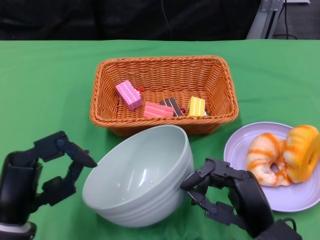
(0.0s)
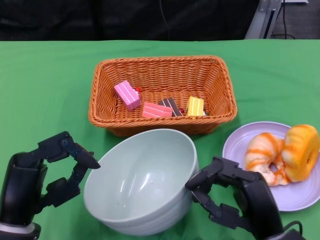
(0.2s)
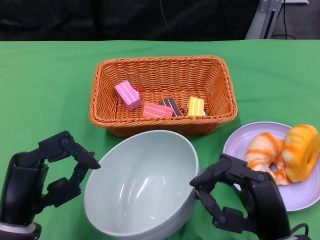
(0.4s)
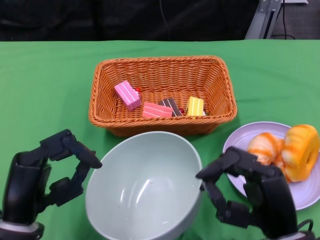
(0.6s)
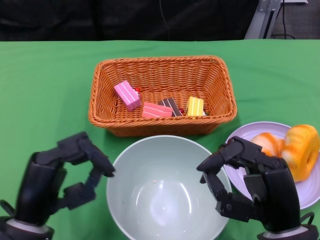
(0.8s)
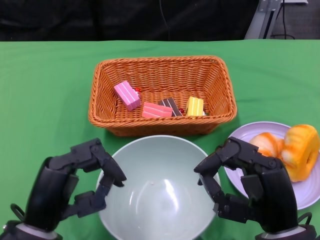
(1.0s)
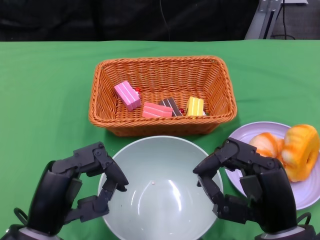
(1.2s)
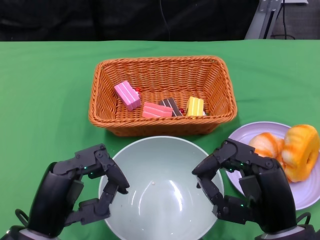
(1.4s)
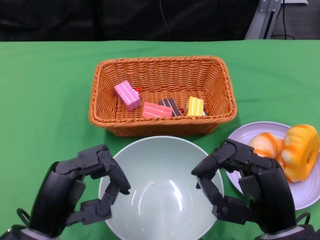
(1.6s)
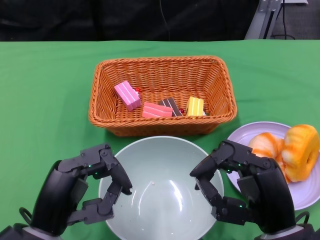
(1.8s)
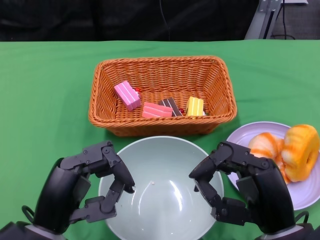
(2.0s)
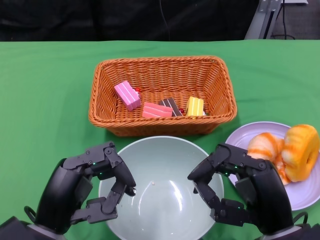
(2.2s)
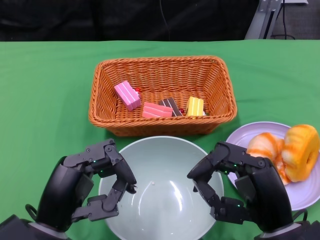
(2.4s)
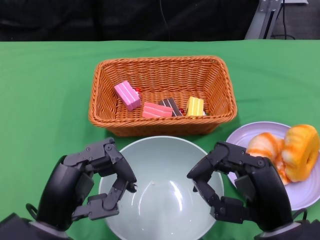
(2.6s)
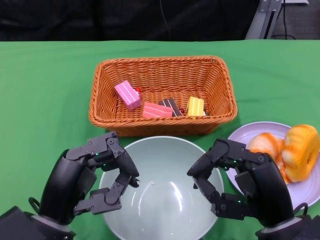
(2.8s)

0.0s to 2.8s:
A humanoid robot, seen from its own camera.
0.0s to 1.4s: The right hand shifts some 5 cm upward.
1.4s to 2.8s: There are only small adjustments of the hands.

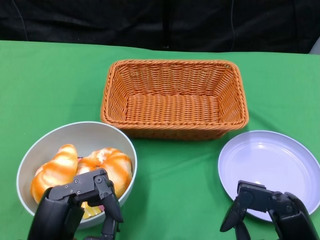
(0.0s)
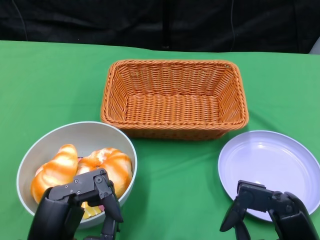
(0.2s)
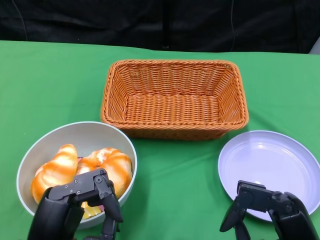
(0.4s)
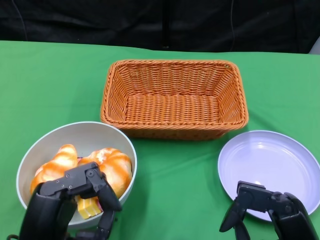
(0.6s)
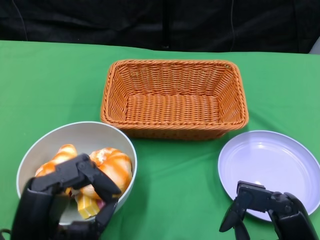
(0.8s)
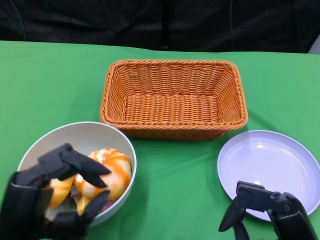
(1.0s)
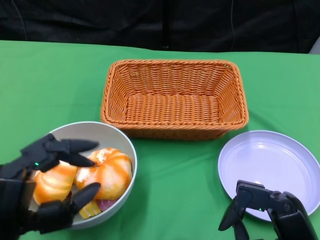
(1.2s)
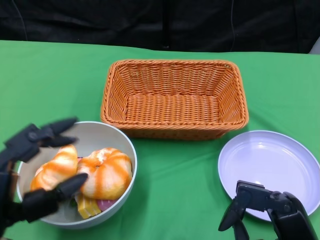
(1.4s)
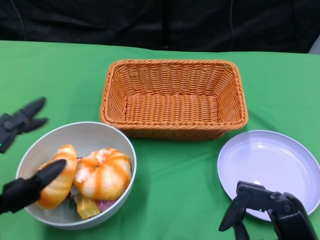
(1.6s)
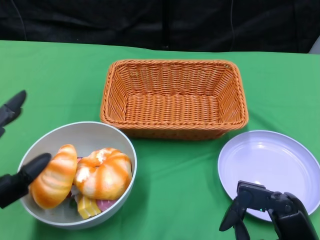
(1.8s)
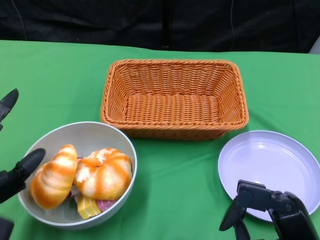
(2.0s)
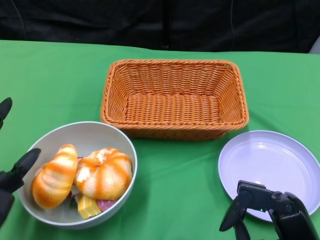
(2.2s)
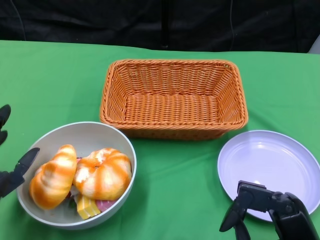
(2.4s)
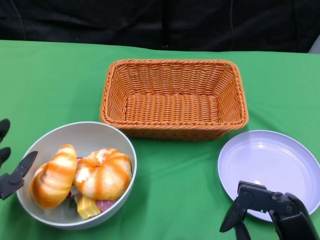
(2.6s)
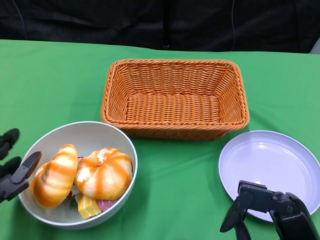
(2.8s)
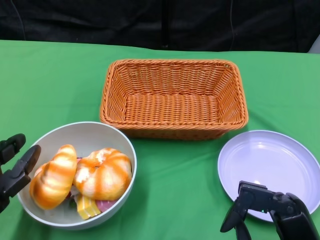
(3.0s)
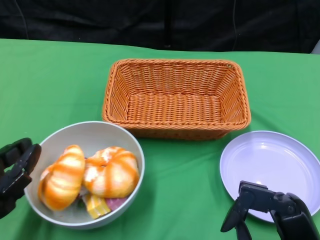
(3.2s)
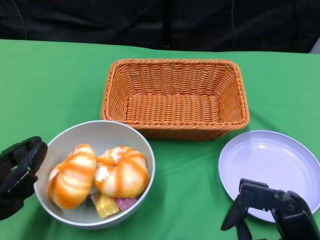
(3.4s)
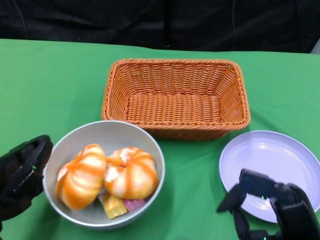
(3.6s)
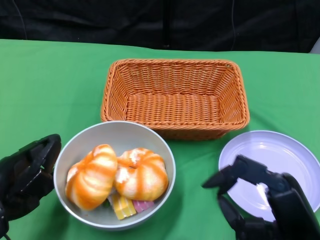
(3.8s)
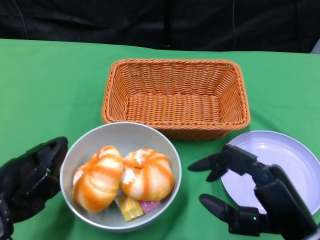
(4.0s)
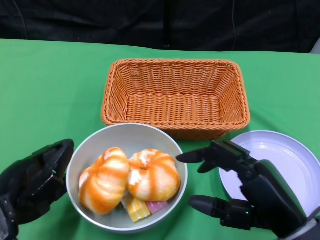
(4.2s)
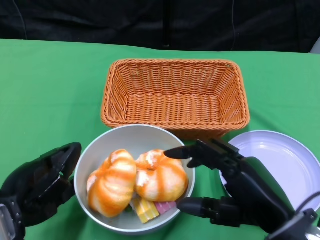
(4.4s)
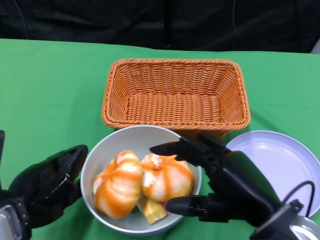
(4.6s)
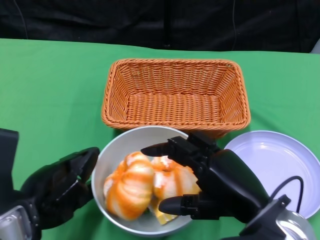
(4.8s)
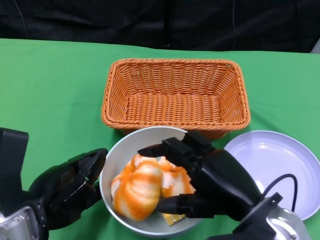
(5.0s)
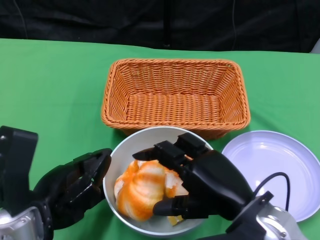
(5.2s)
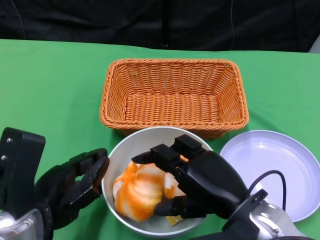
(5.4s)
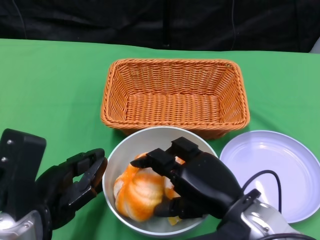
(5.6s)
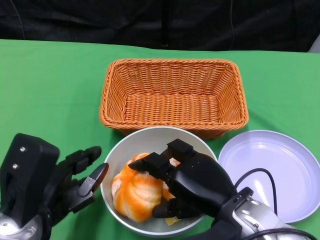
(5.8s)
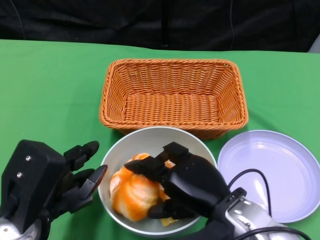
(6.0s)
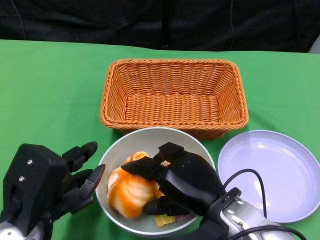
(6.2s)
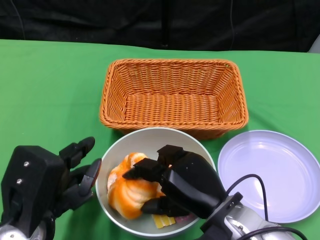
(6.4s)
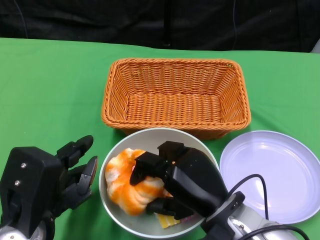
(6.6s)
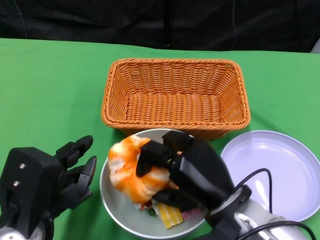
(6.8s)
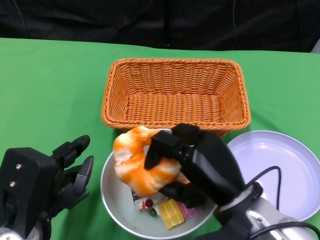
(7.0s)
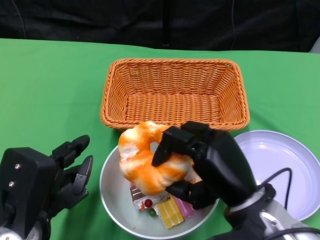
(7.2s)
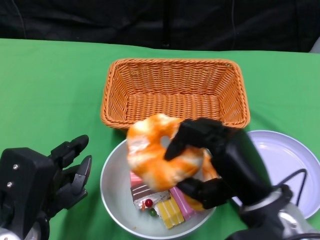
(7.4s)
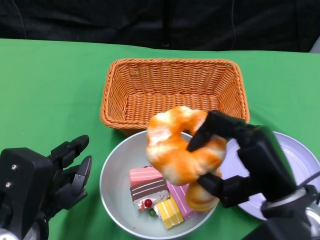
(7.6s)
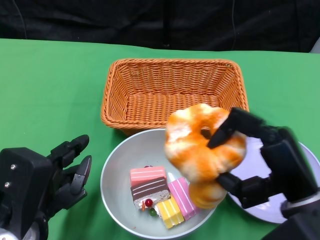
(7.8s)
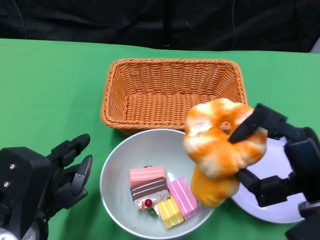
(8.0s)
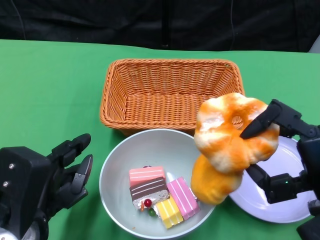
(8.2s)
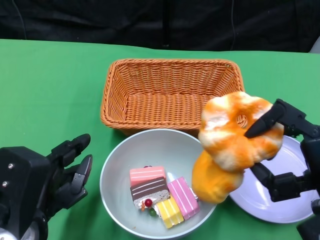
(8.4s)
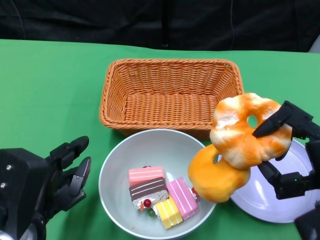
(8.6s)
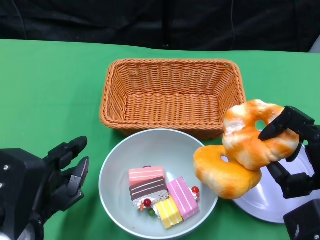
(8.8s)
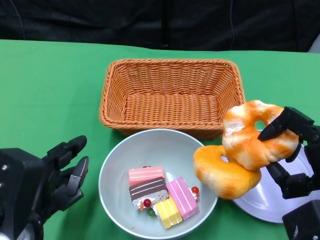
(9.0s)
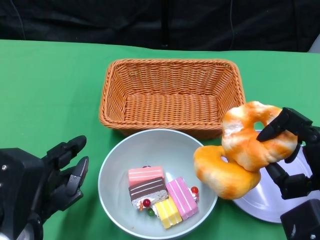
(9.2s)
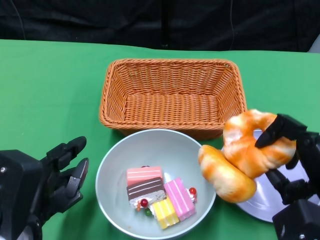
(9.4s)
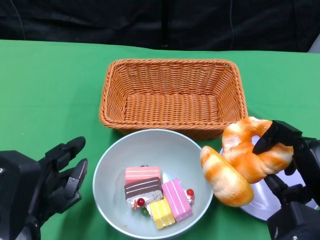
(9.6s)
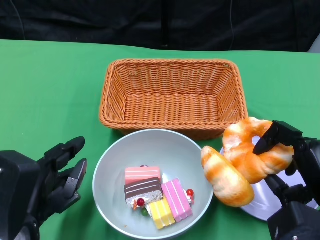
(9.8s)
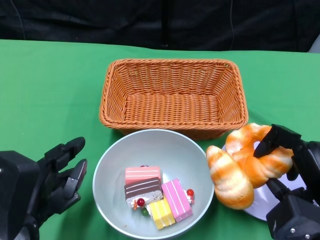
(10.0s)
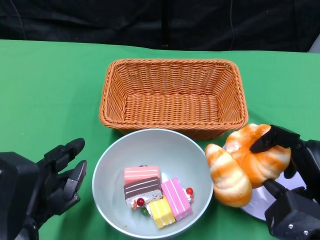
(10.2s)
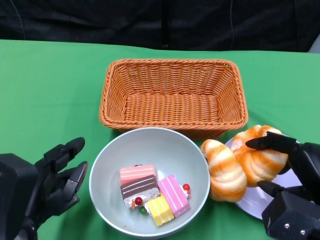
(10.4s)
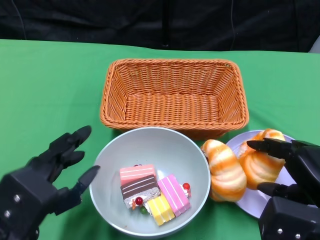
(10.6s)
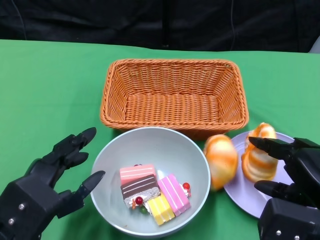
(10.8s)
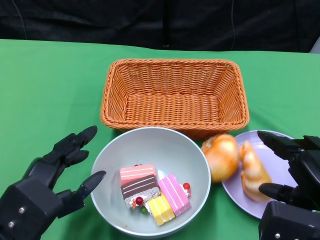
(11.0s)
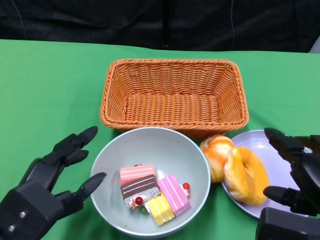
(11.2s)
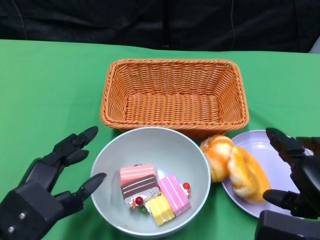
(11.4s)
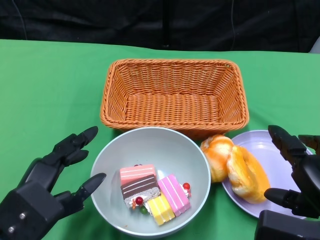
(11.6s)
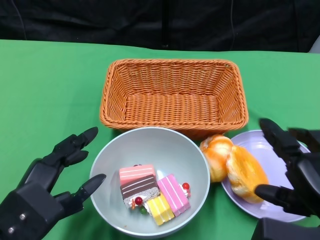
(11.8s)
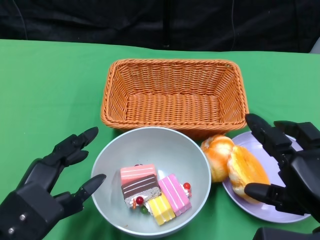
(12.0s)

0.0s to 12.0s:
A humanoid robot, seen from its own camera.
Step, 0.0s to 5.2s: Push the bowl to the center of the table using the left gripper.
Step, 5.4s to 11.4s: Pick up the bread with the right gripper and place it on the plate.
1.6s to 3.0s: The left hand shifts by some 5 cm.
3.0s to 4.4s: The right hand heads upward, covering roughly 5 cm.
4.4s to 6.0s: The right hand moves to the left, approximately 5 cm.
6.0s to 7.6s: The right hand goes about 5 cm to the right.
7.6s to 9.0s: The right hand moves to the right, roughly 5 cm.
10.4s to 12.0s: The right hand shifts by some 5 cm.

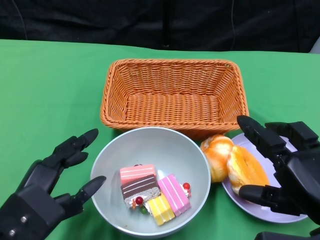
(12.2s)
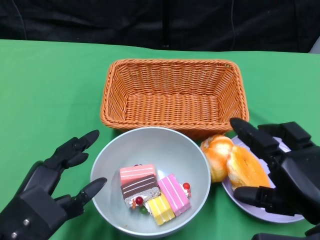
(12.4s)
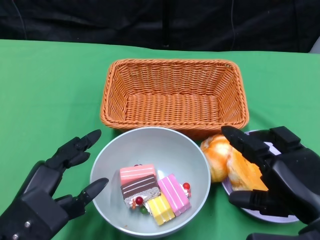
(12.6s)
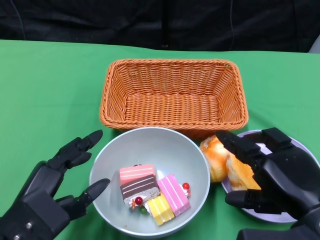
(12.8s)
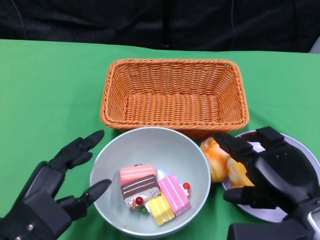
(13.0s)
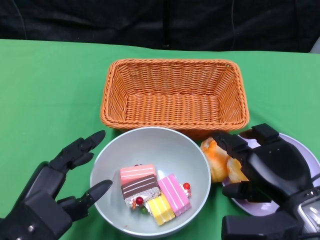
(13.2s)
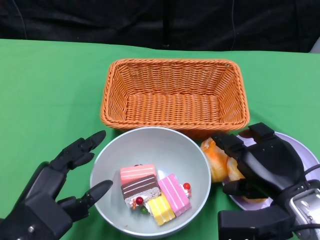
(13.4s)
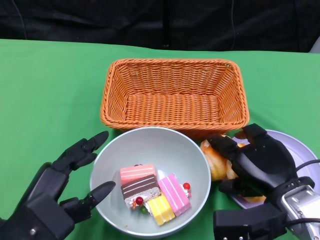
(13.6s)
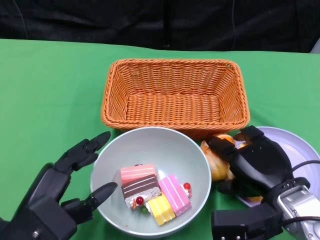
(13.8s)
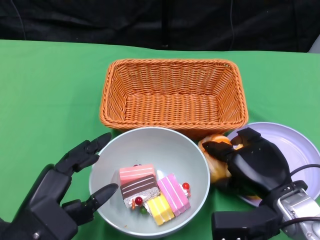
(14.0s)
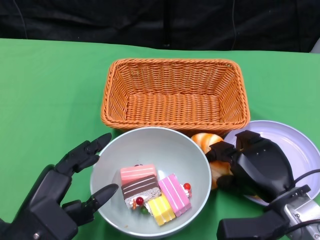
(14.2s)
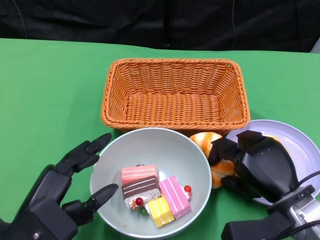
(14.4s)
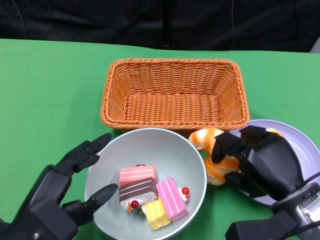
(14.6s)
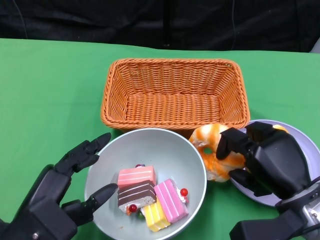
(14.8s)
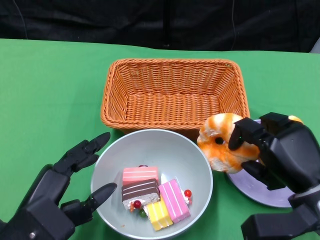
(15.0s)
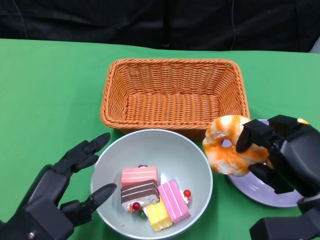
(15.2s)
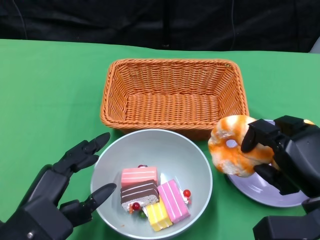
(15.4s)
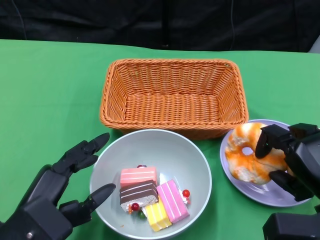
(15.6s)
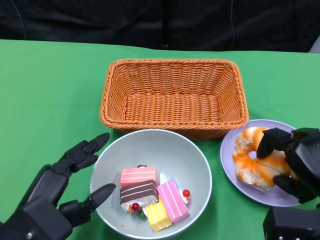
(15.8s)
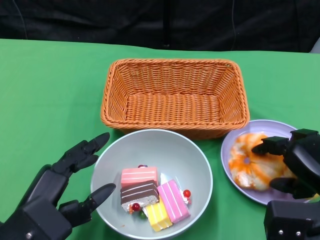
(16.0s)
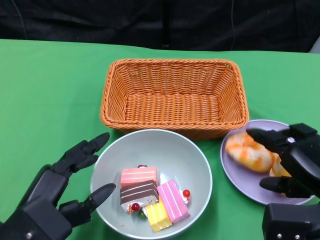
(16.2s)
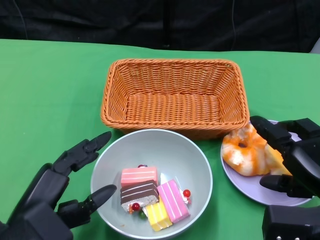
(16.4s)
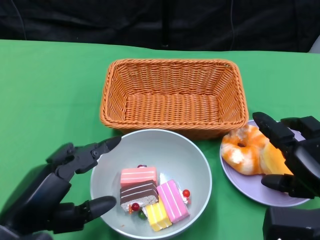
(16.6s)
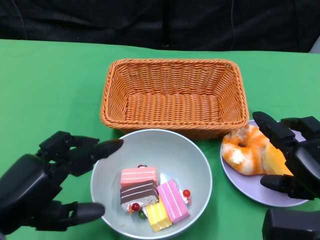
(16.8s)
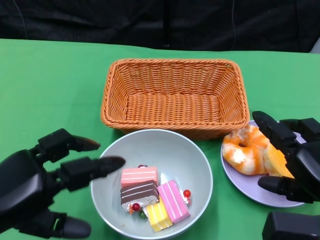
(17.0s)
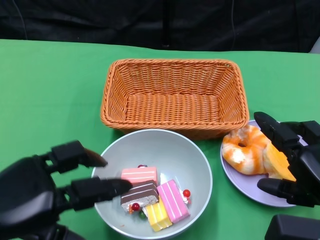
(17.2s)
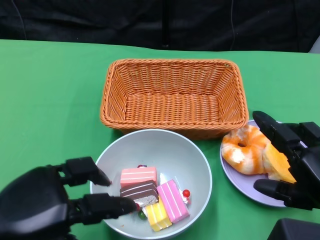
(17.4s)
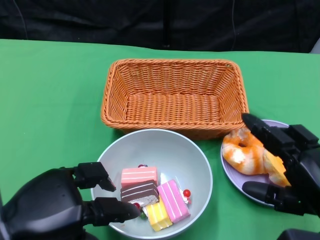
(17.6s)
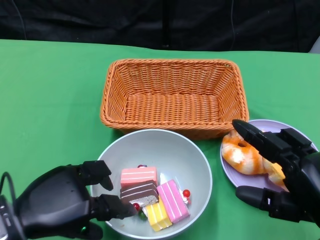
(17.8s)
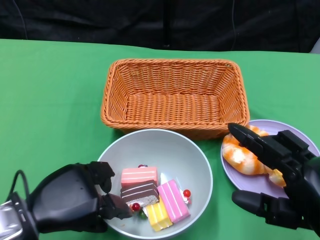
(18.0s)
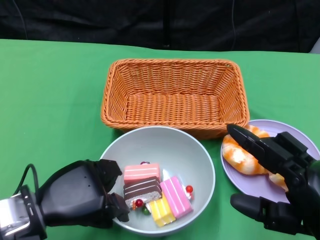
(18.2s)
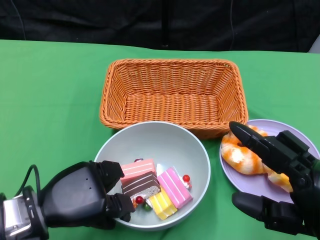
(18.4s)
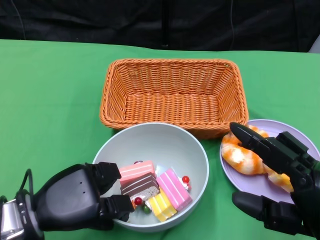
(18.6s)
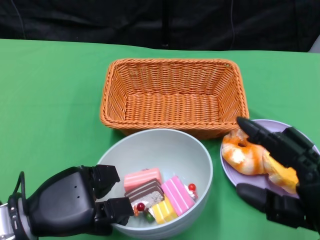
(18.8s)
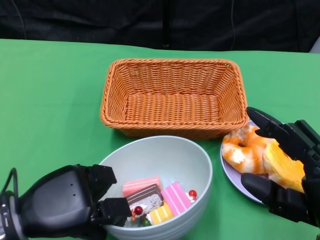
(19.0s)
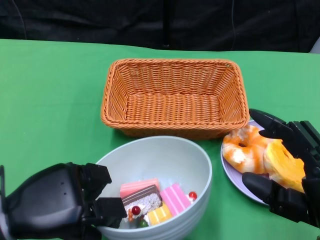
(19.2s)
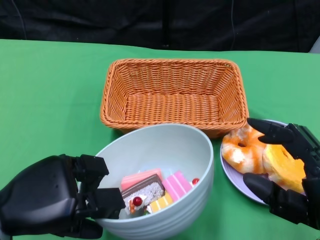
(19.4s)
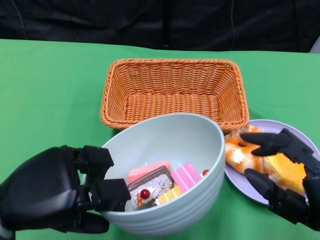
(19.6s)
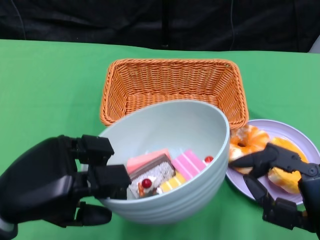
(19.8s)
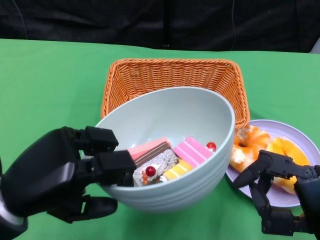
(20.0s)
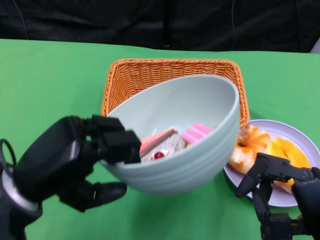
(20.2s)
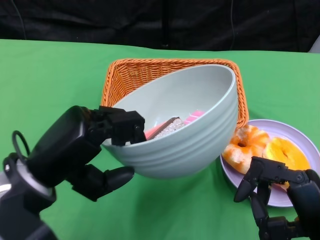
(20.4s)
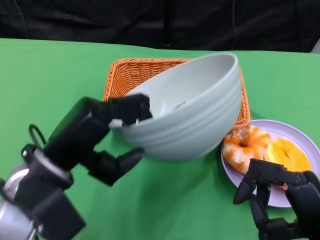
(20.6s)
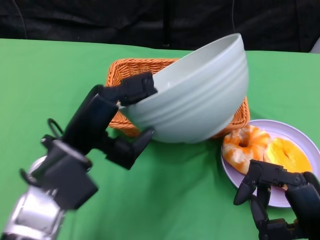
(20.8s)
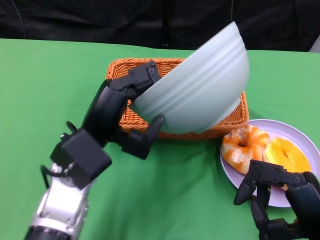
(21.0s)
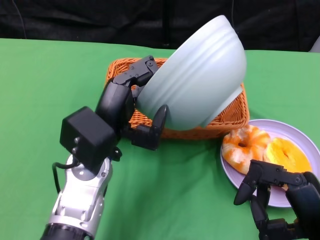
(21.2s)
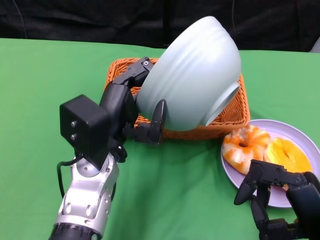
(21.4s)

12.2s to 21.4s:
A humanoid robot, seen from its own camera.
Step, 12.2s to 16.4s: Pick up the bread with the right gripper and place it on the plate.
Step, 16.6s to 18.2s: Grasp the bowl with the left gripper.
12.2s to 13.8s: The right hand heads forward and downward, covering some 10 cm.
15.2s to 16.8s: The right hand shifts by some 5 cm.
16.8s to 18.4s: The left hand goes some 10 cm forward and downward; the right hand is displaced backward by roughly 5 cm.
18.4s to 19.8s: The left hand is displaced upward by about 10 cm.
19.8s to 21.4s: The left hand moves to the right and forward, some 15 cm.
